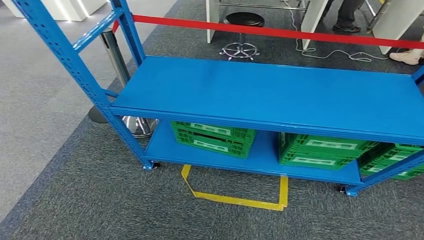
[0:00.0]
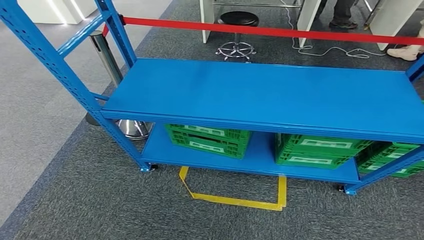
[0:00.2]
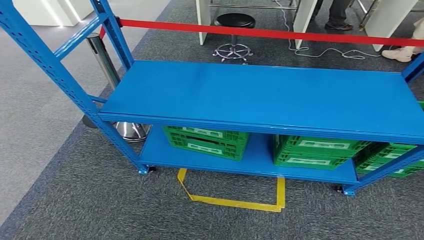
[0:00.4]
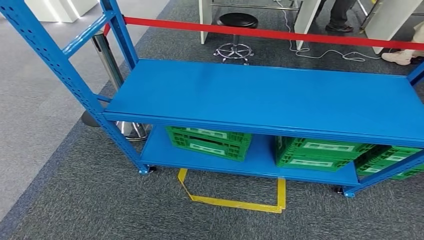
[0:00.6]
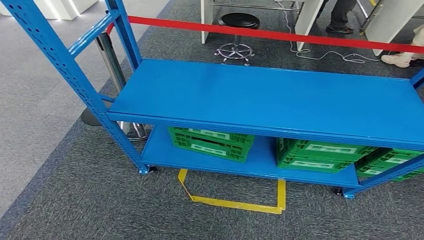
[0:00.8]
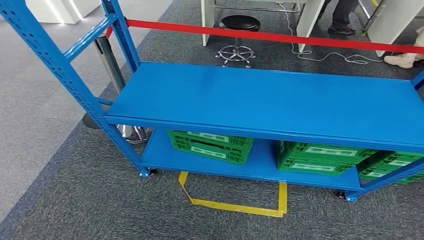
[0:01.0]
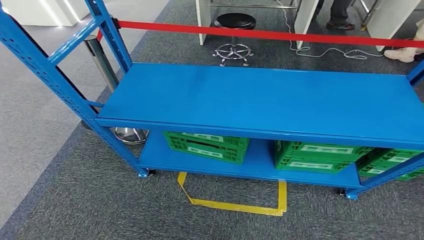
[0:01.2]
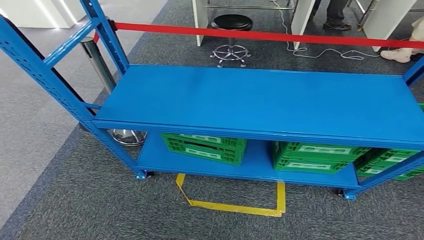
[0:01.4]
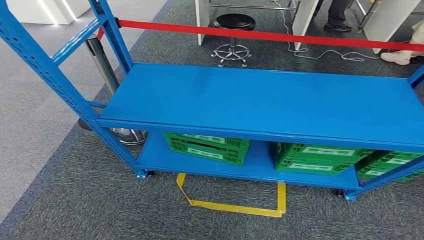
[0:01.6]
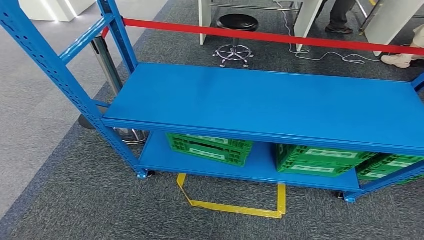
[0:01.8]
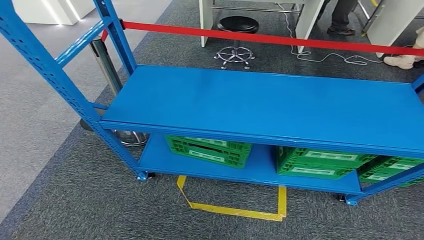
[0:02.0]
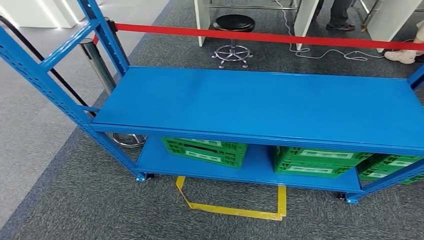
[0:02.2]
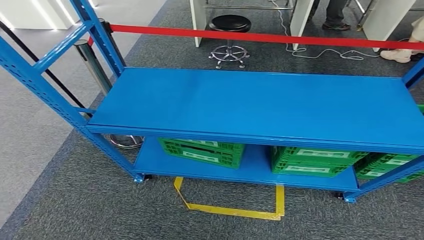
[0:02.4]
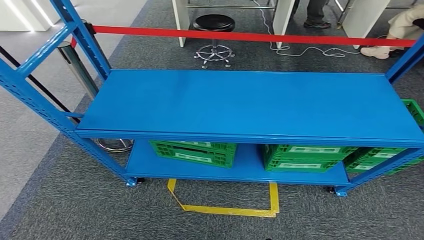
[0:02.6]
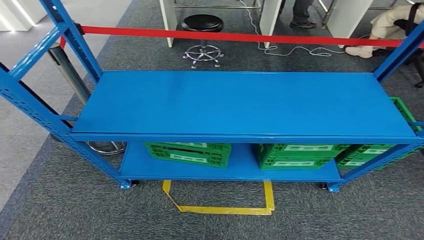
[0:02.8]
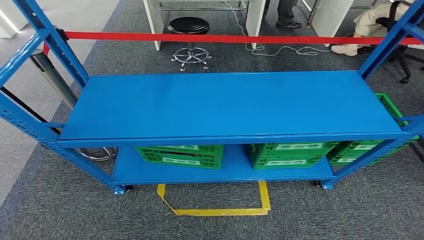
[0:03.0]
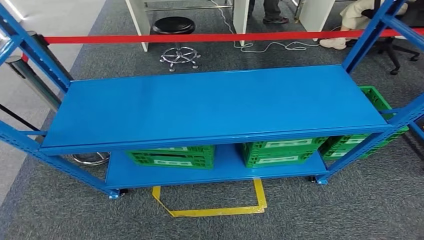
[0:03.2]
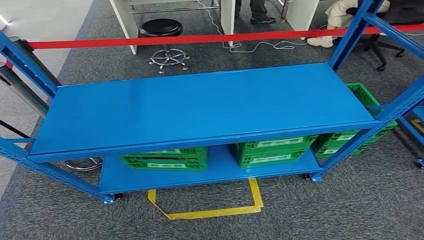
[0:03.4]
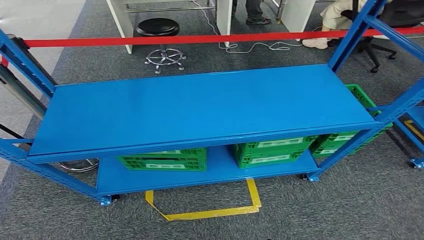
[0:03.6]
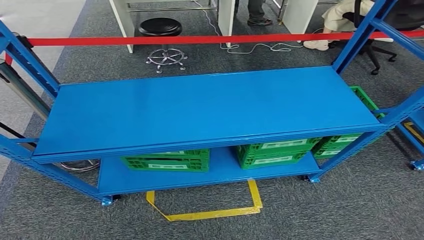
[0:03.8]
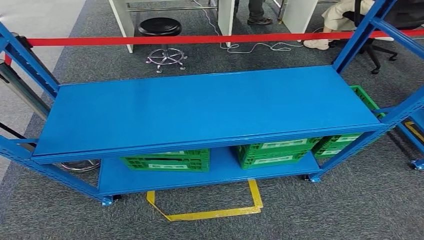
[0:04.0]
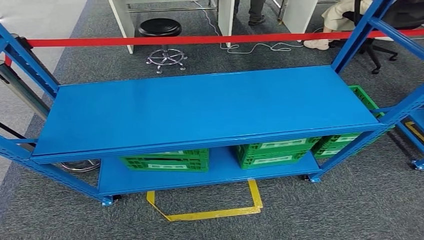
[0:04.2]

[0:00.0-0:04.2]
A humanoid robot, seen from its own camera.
Step, 0:00.0 to 0:04.2: Return to the initial position at the workbench.
